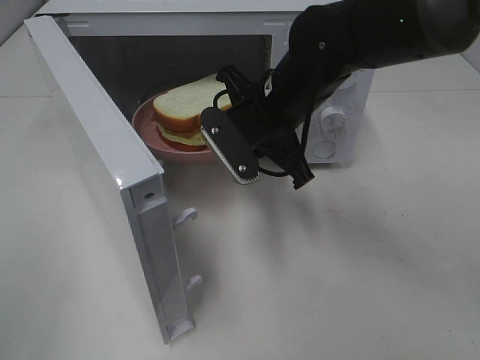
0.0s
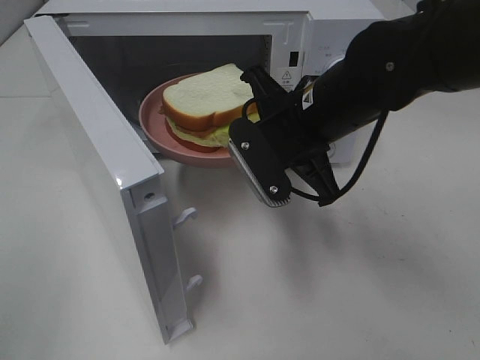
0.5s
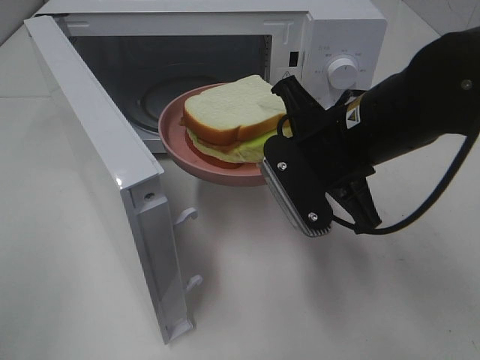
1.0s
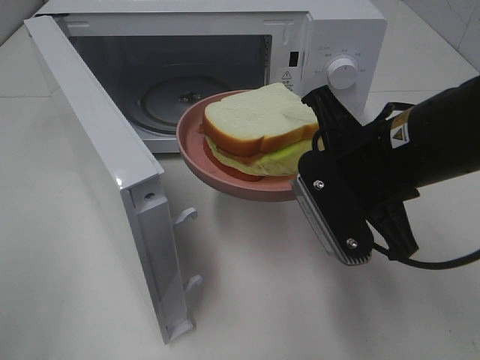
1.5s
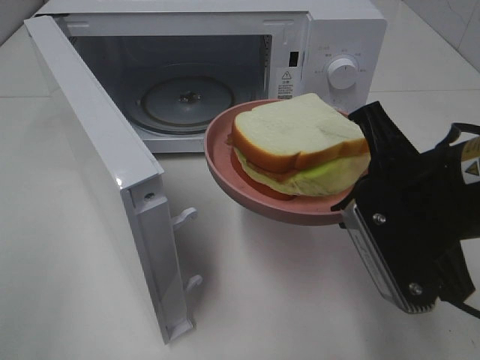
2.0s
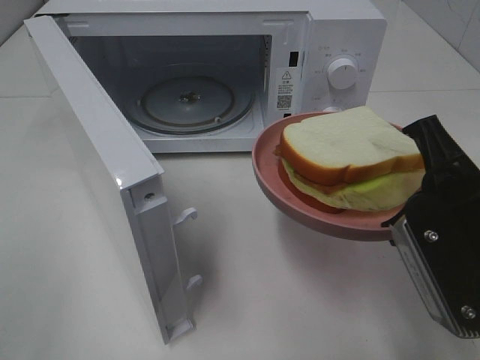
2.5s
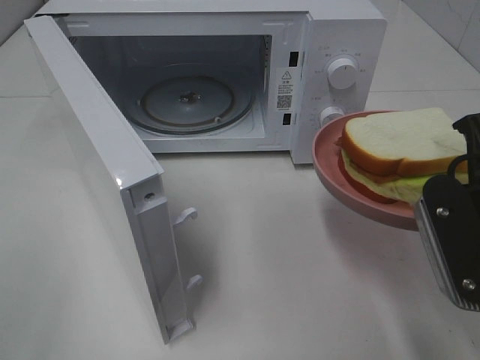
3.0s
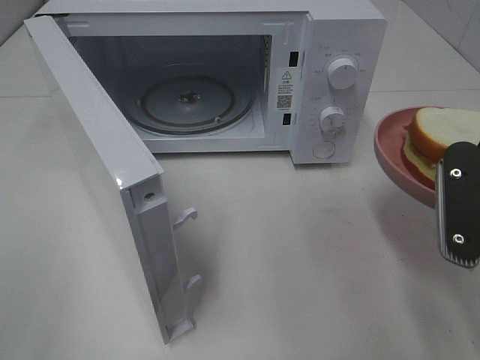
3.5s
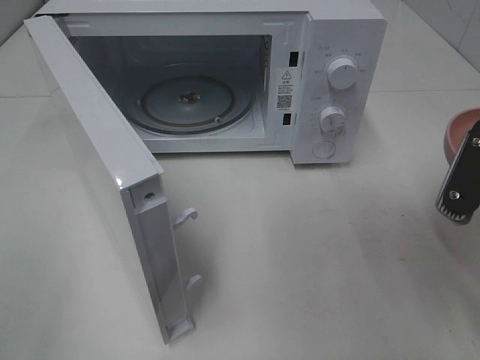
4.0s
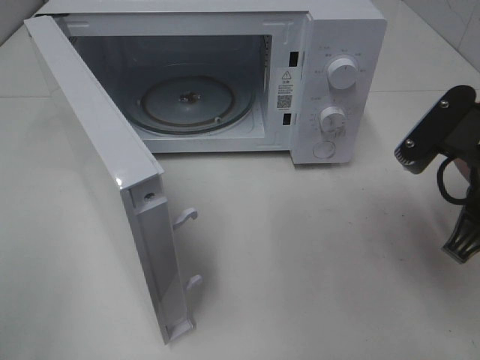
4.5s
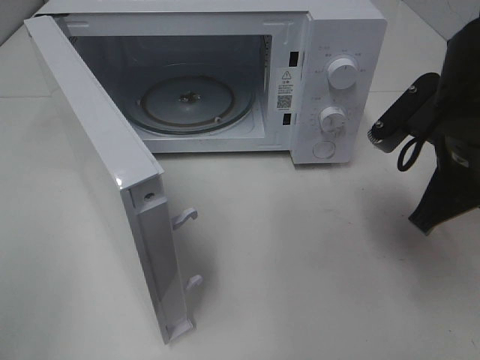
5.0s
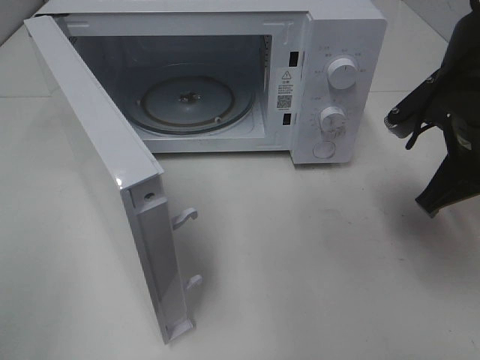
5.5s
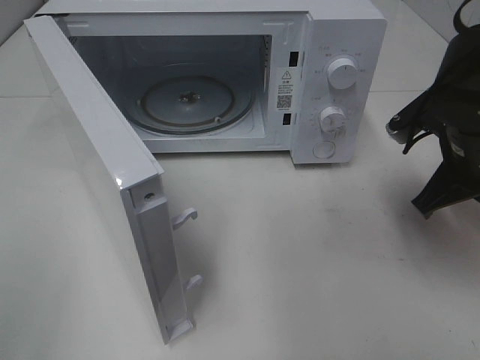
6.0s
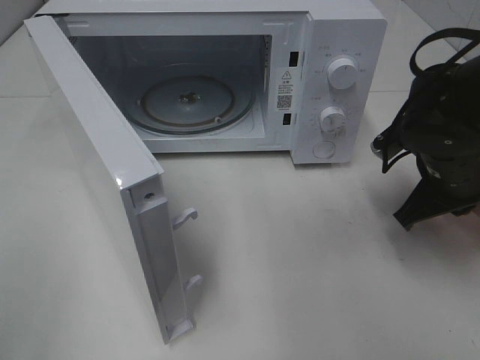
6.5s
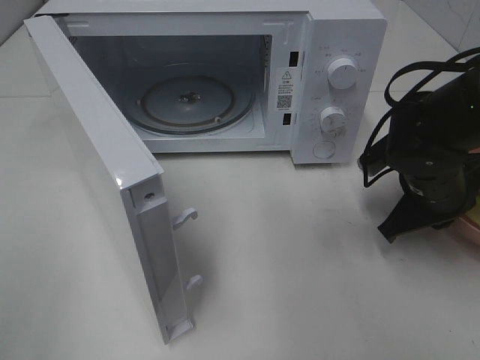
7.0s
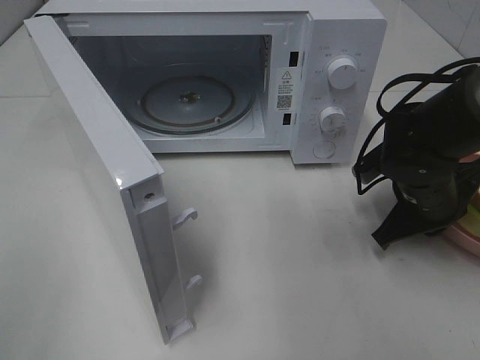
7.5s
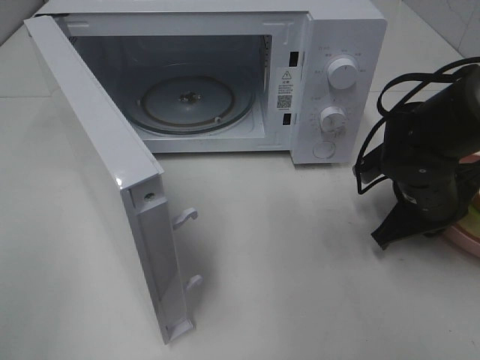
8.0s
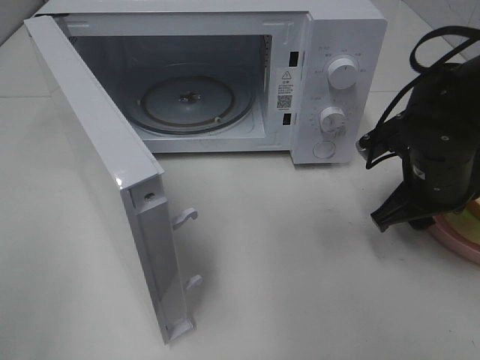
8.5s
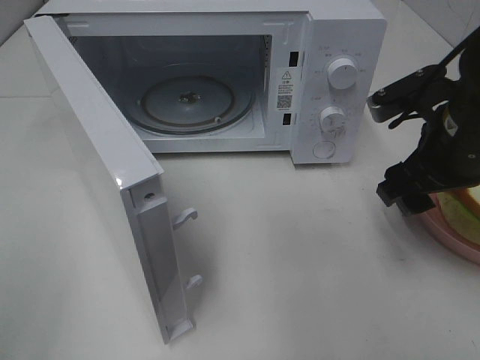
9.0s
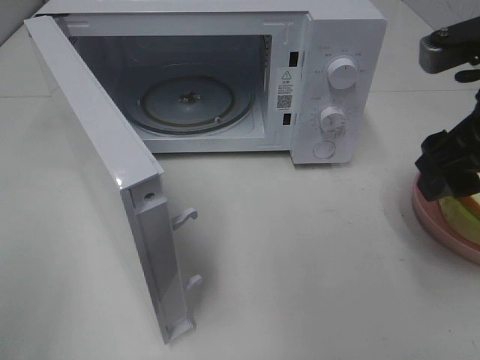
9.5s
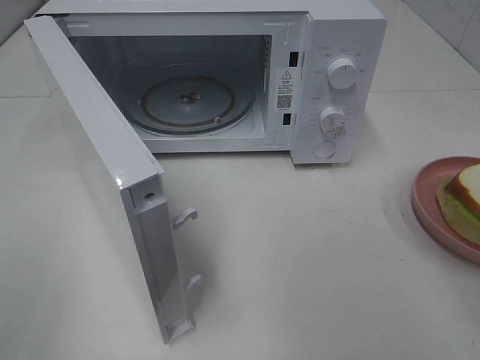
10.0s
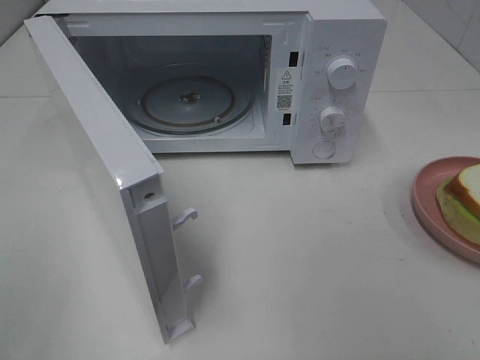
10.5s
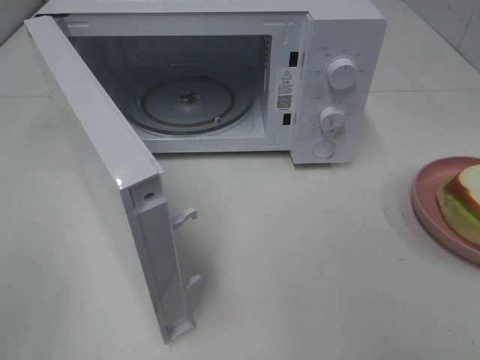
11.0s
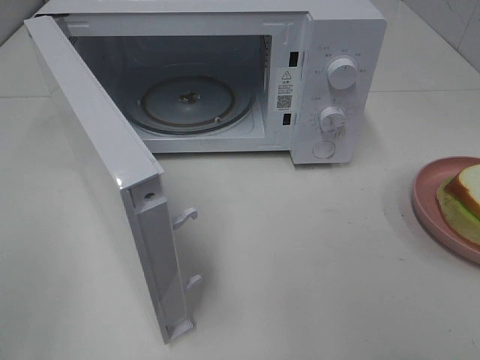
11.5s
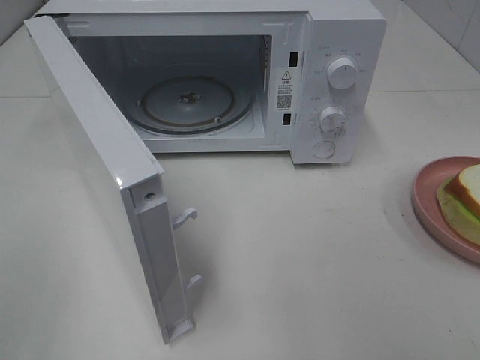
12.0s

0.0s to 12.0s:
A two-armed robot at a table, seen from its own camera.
Task of the whole recording: Heat Sandwich.
Step, 0.0s to 8.5s: Right hand: place the plate on the table.
0.0s to 2.0s: The right gripper heads backward and to the right, covering about 20 cm.
2.0s to 4.0s: The right gripper travels to the right by roughly 5 cm.
4.0s to 6.0s: The right gripper travels forward by some 10 cm.
6.0s to 8.0s: The right gripper shifts roughly 10 cm downward.
8.0s to 10.0s: The right gripper is displaced upward and backward by some 25 cm, and opens its fingers.

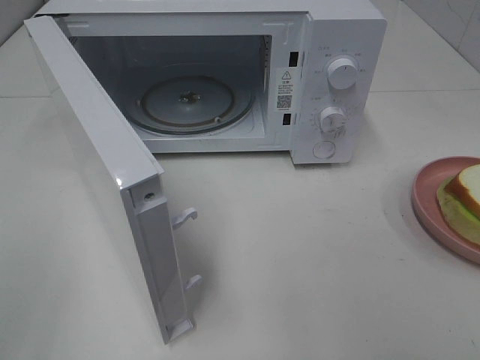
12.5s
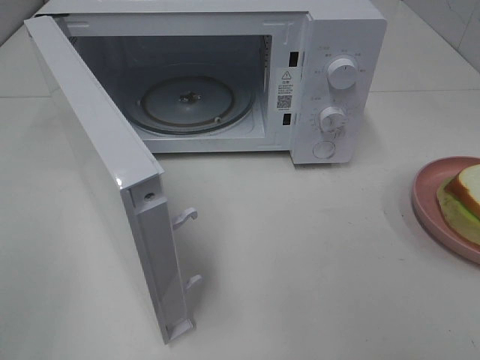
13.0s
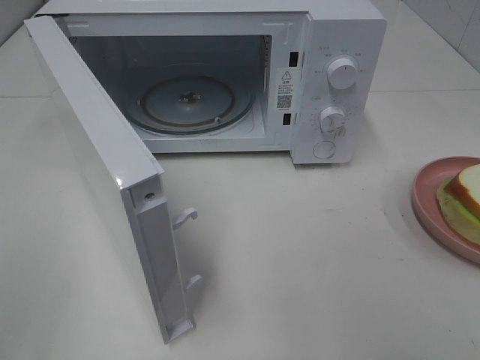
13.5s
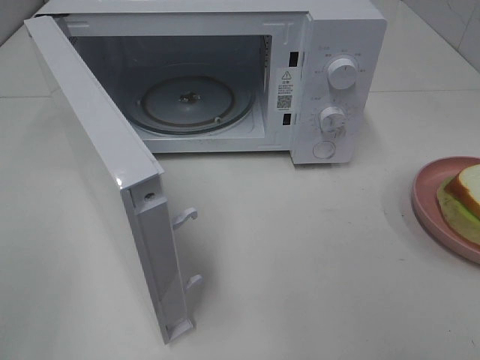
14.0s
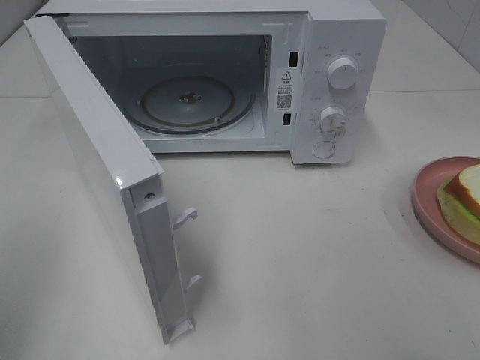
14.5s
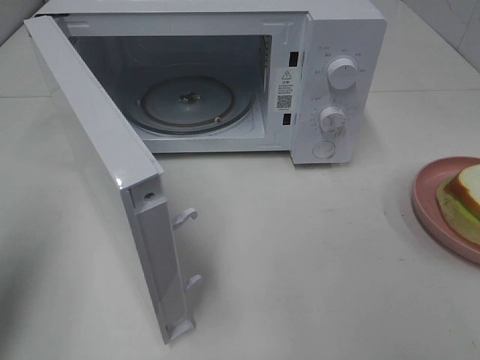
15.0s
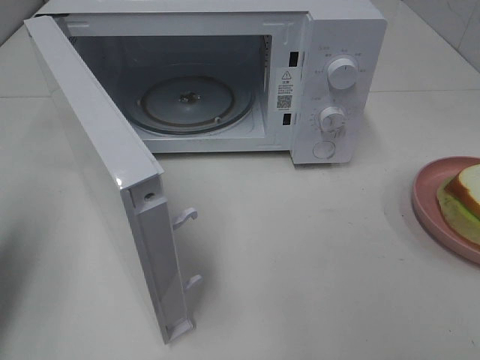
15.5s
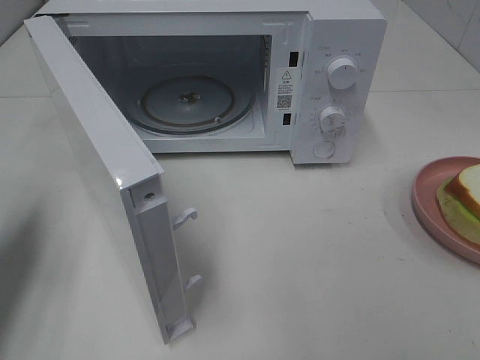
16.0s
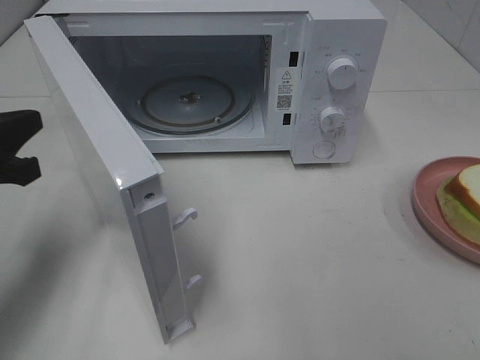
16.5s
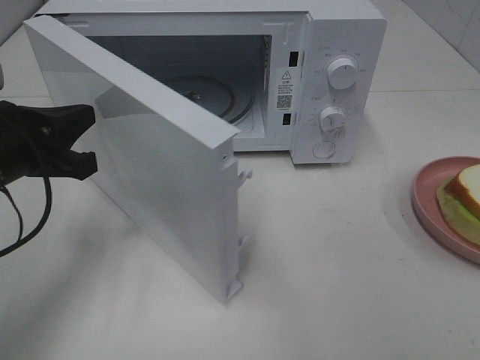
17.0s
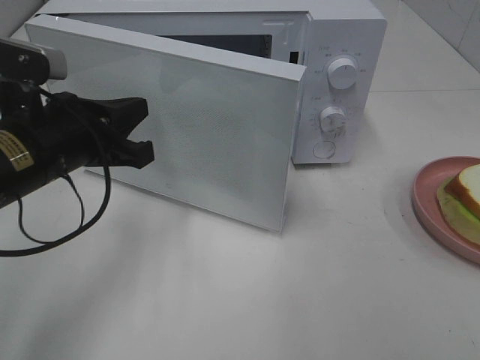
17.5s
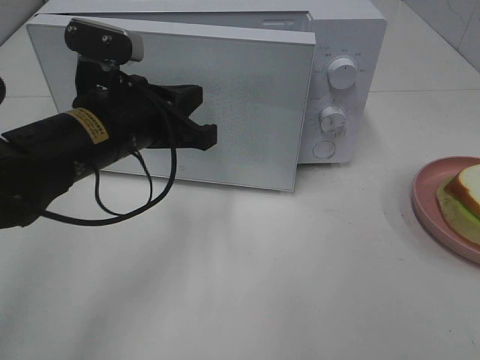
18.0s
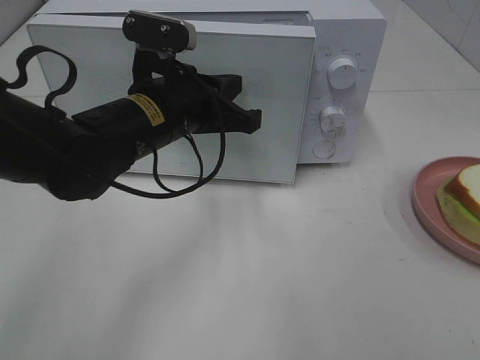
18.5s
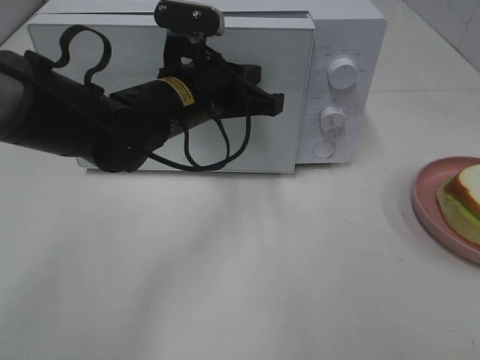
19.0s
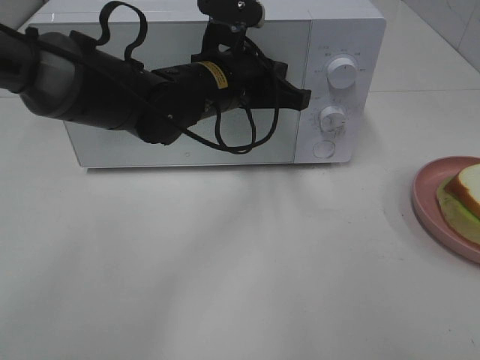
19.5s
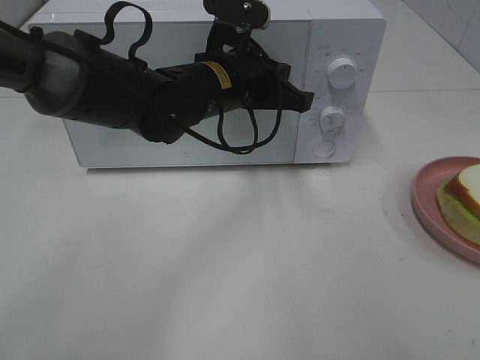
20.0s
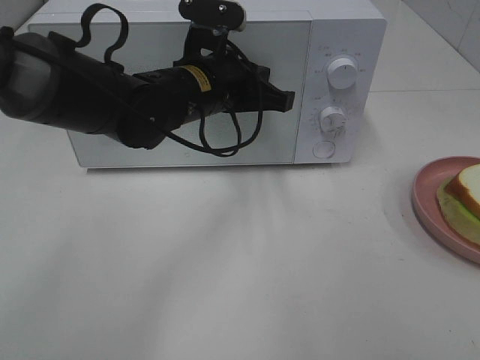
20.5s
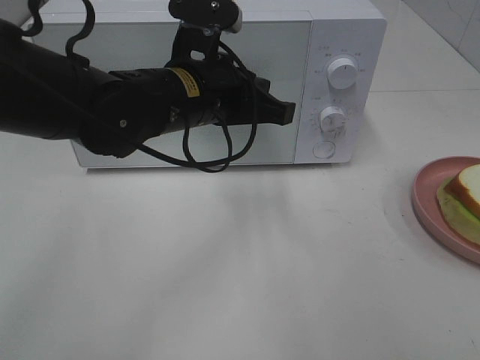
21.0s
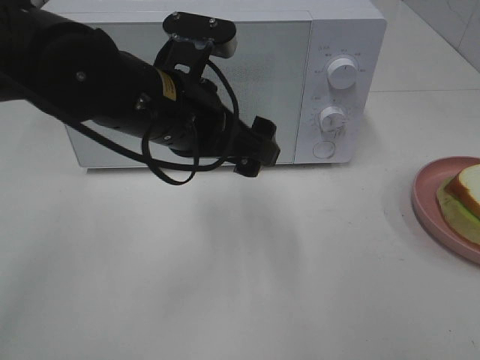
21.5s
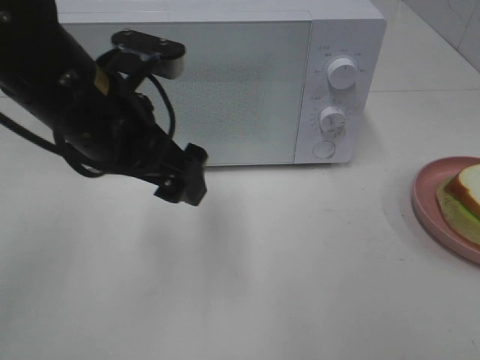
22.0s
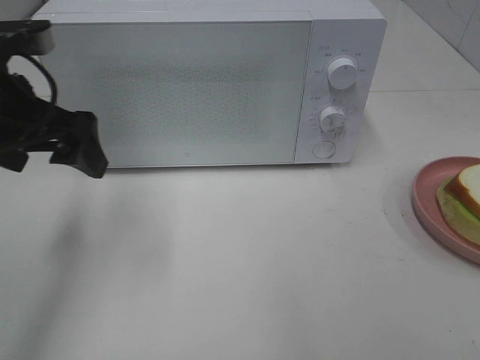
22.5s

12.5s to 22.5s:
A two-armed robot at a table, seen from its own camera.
Task of the whole recording: Heat Sandwich.
Step, 12.5s to 20.5s: Left hand: close the microwave door.
14.5s to 16.5s: The left gripper shifts roughly 20 cm forward and downward, and closes.
16.5s to 18.5s: The left gripper shifts roughly 20 cm to the right.
18.5s to 20.5s: The left gripper moves roughly 5 cm.
20.5s to 22.5s: The left gripper heads to the left and backward, covering approximately 20 cm, and opens up.

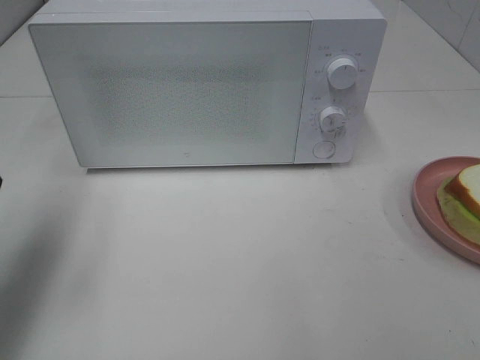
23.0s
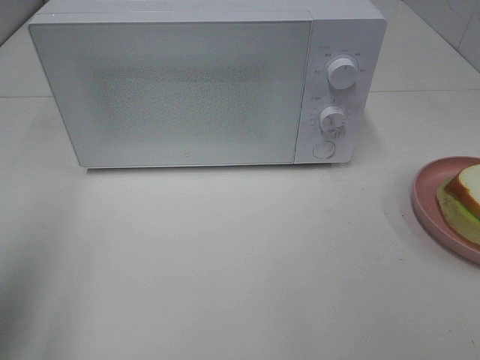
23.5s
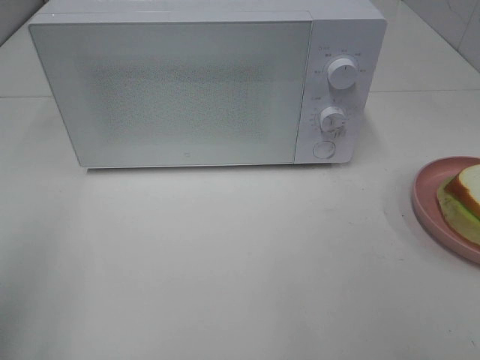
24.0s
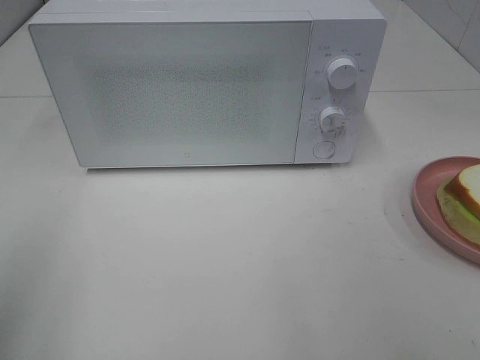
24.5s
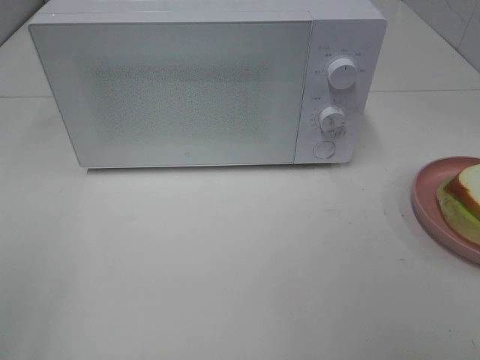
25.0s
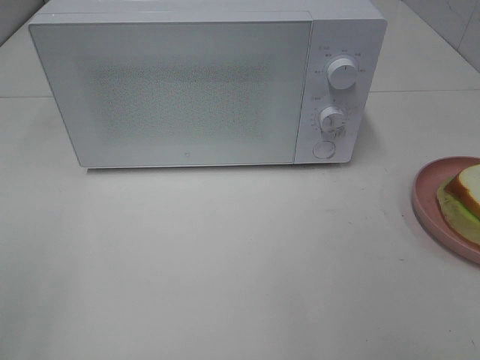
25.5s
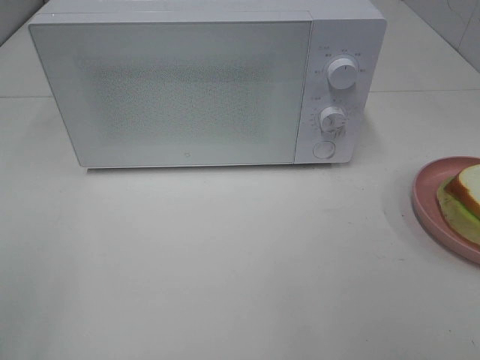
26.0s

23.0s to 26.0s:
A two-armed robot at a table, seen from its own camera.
Task of the whole recording: Heat Sandwich.
23.0s to 24.5s: The left gripper shifts some 15 cm backward.
